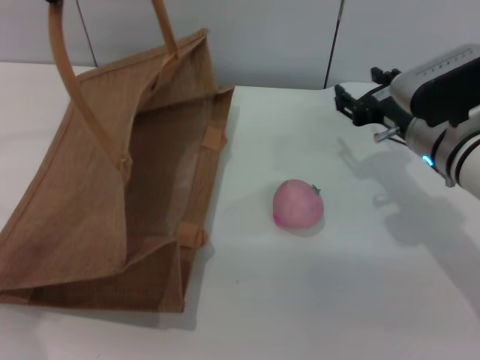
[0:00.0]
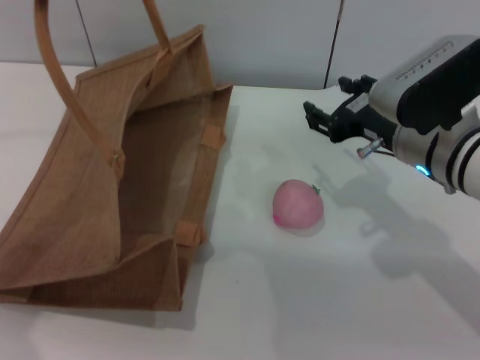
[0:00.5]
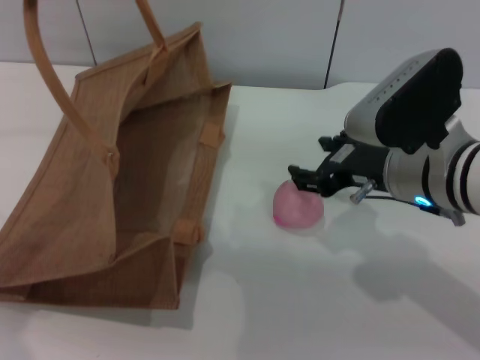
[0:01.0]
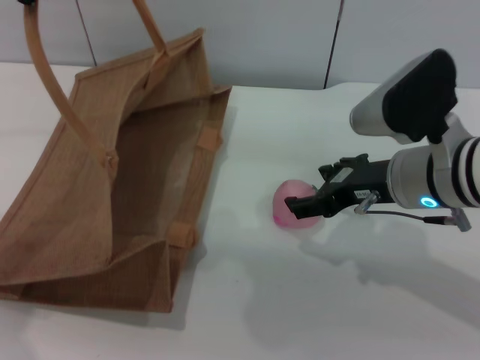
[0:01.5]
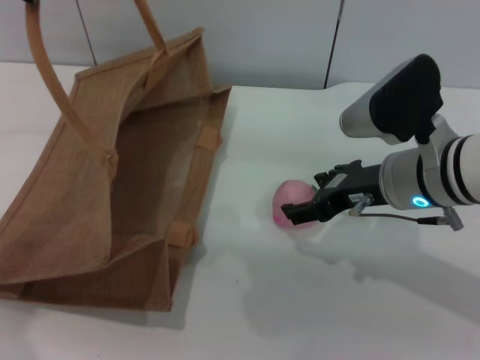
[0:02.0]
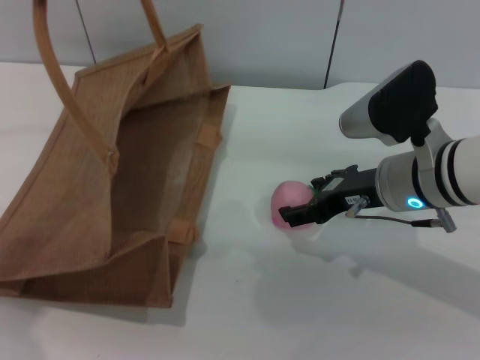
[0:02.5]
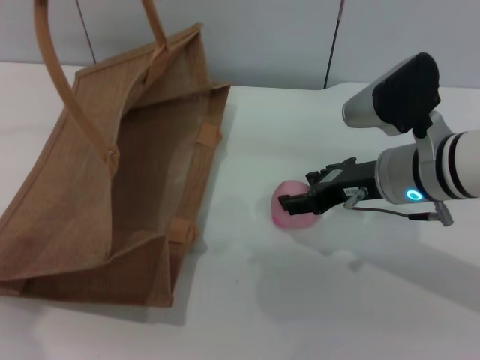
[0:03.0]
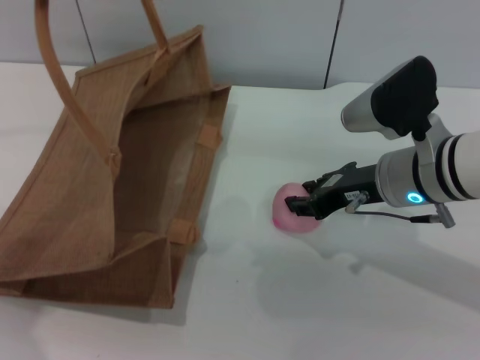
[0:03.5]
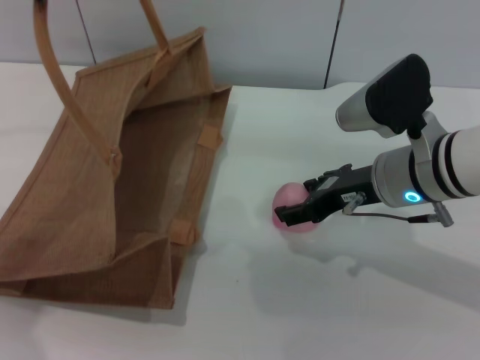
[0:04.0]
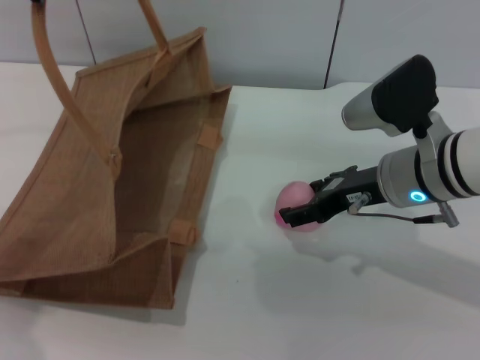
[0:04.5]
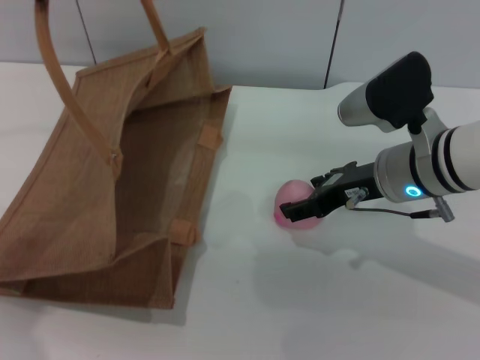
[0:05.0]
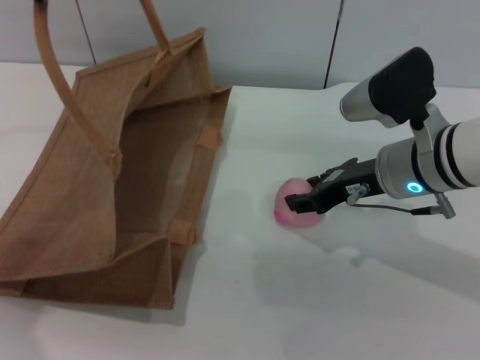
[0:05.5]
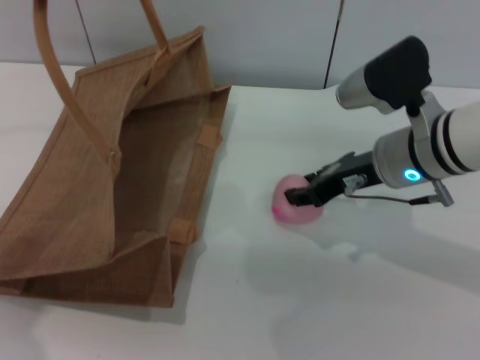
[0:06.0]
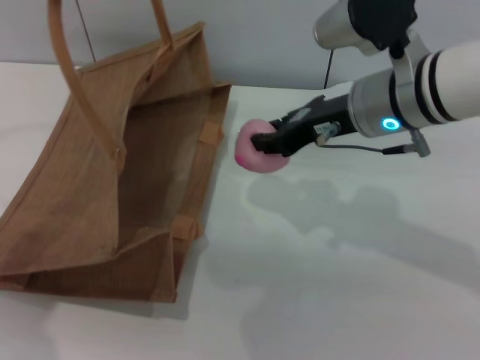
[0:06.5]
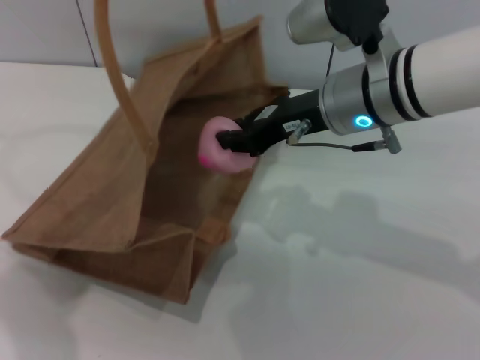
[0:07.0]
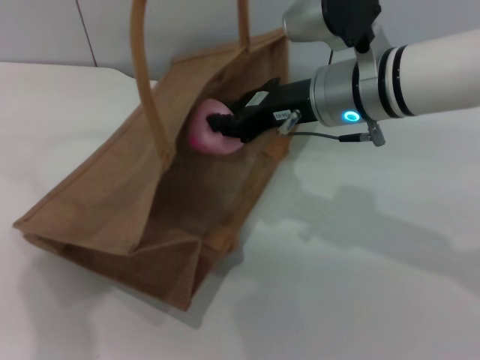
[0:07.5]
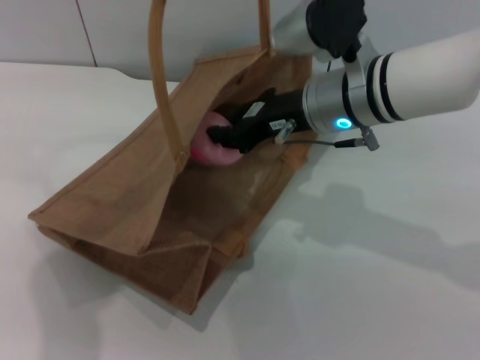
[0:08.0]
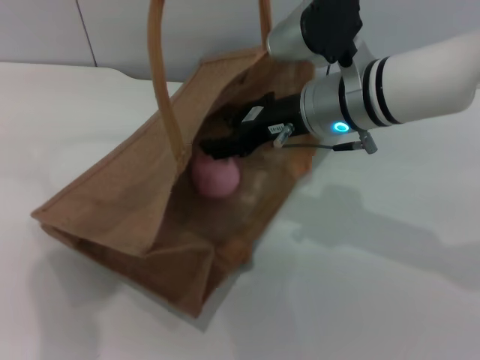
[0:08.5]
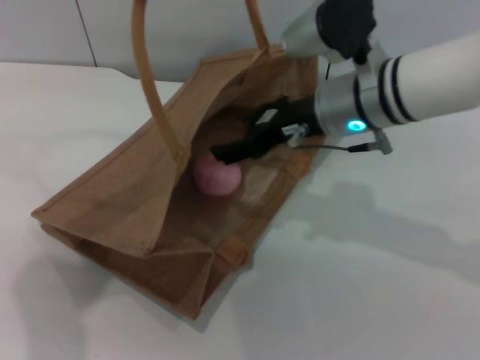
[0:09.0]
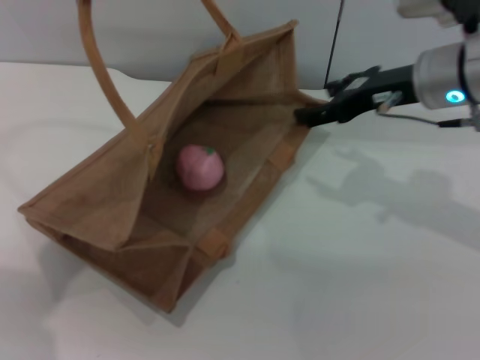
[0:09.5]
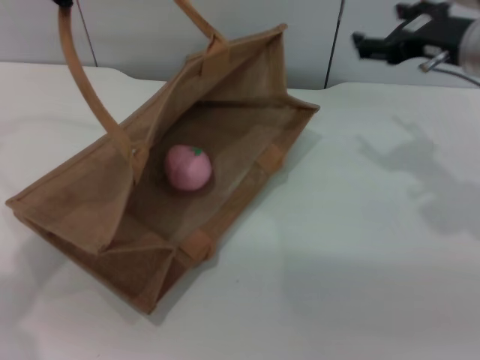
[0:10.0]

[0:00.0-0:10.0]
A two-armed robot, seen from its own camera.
Task of the whole recording: pick up the peach from the table and place it in the brown handbag.
Step, 0:00.5 to 0:06.0: Pick up the peach with the right gripper.
Step, 0:06.5 to 0:09.0: Place the peach into the woven bag with the right gripper.
0:00.0 to 0:02.0: The right gripper changes place by approximately 5 cm.
0:02.0 to 0:04.0: The right gripper closes up.
0:04.0 to 0:06.0: The right gripper opens, then closes again.
0:06.0 to 0:08.0: The right gripper goes some 5 cm to the left, and closes. The left gripper goes about 10 cm to the right.
0:08.0 to 0:10.0: The left gripper is displaced to the left and downward by some 10 cm, while the right gripper goes approximately 15 cm to the right, and opens its fingers.

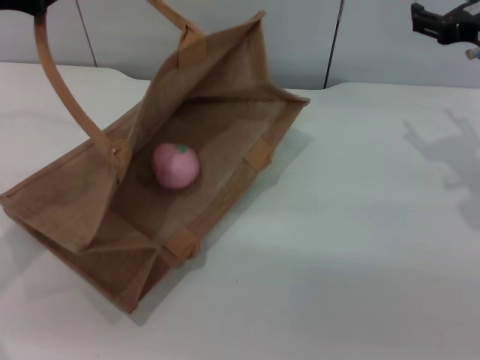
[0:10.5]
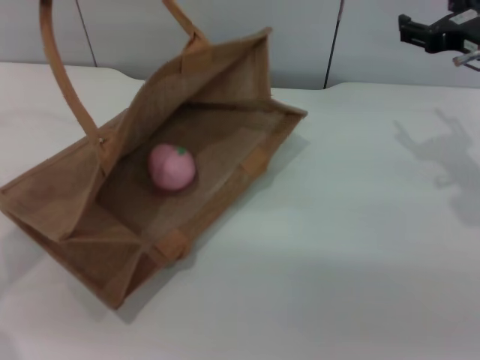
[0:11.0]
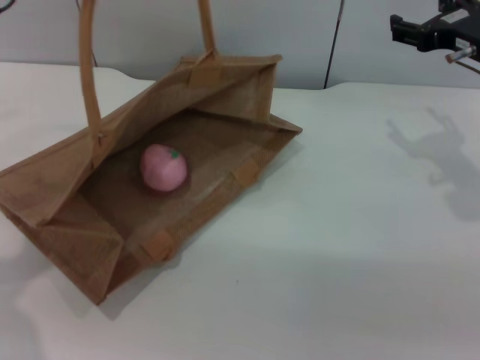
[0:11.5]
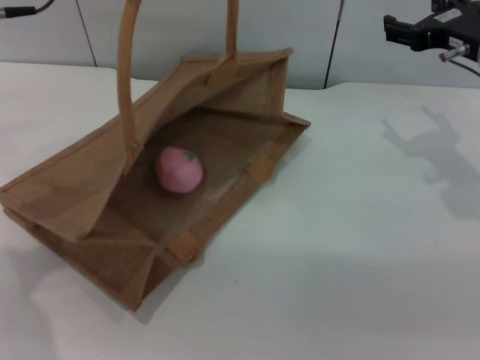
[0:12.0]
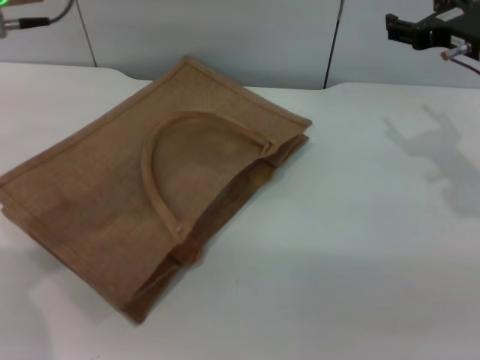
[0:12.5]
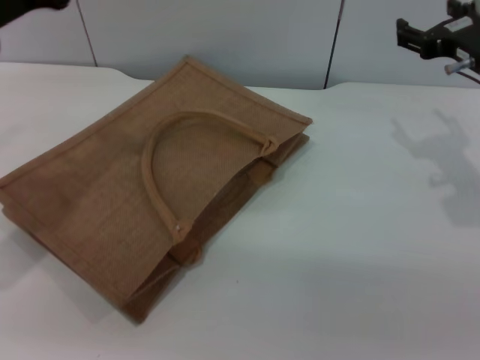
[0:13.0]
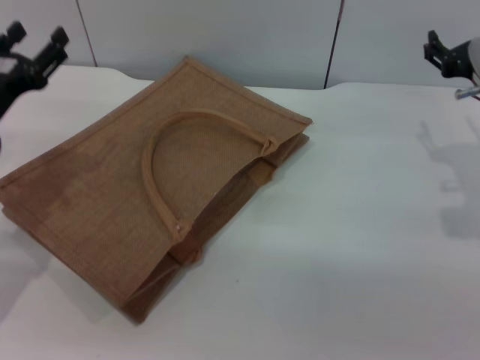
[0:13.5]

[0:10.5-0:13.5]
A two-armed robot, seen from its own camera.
Task of the whole recording: pick up the peach from the table and place it in the brown handbag.
Step, 0:10.5 to 0:12.5: Lower the woven bag with the left gripper to close it.
0:10.5 to 0:12.0: The left gripper heads to the right, covering approximately 5 cm, and opens.
0:12.0 to 0:13.5: The right gripper goes approximately 5 cm downward, while the left gripper is displaced downward by about 20 cm.
